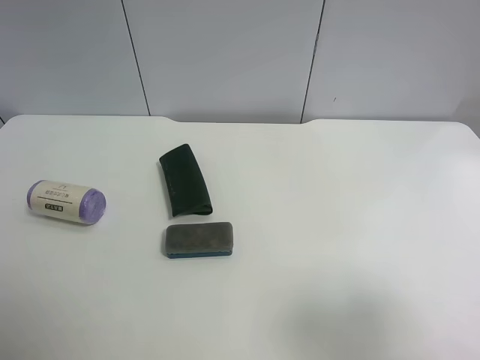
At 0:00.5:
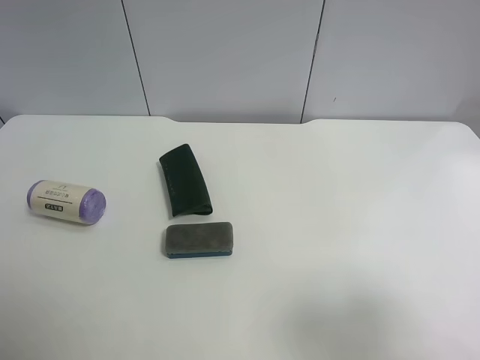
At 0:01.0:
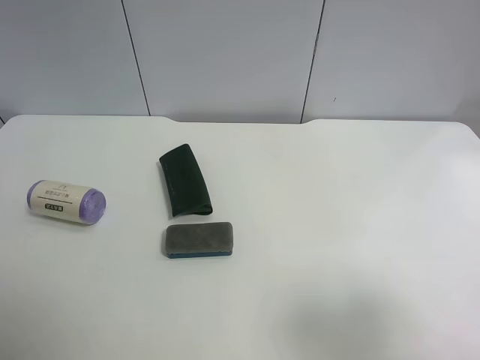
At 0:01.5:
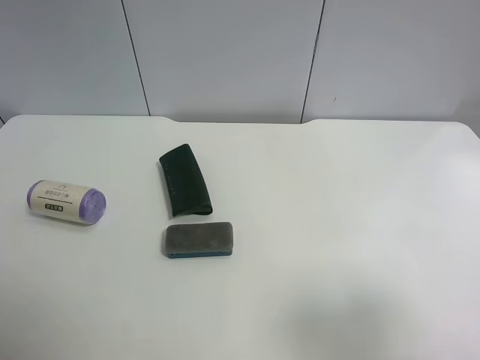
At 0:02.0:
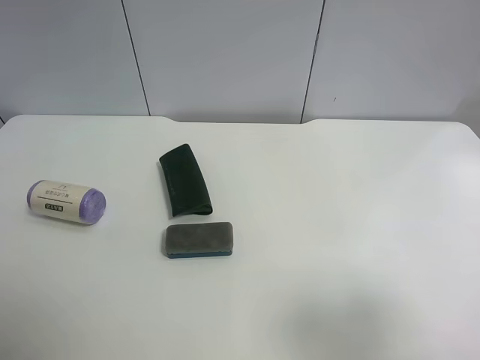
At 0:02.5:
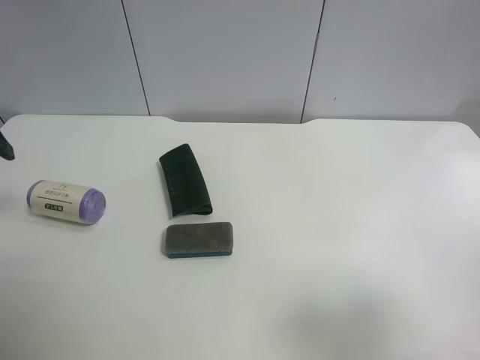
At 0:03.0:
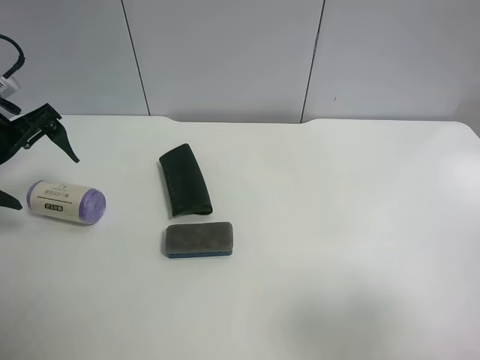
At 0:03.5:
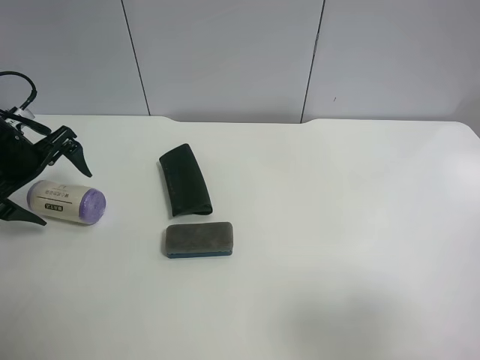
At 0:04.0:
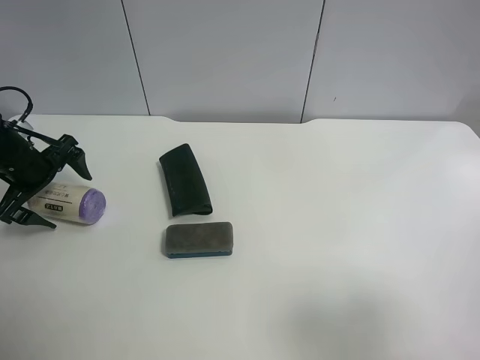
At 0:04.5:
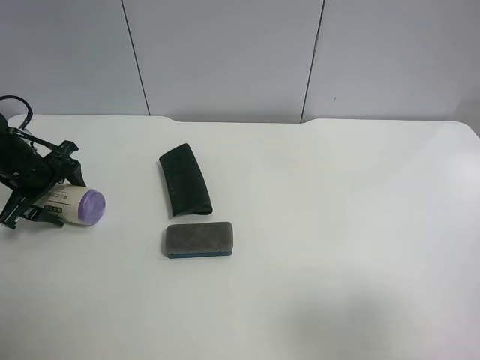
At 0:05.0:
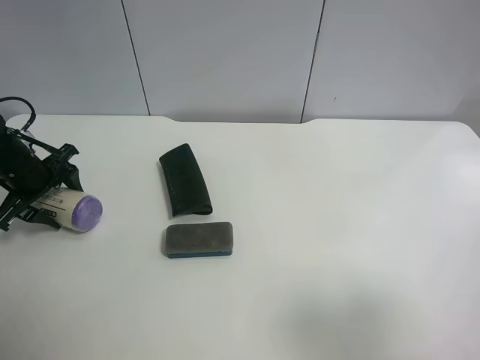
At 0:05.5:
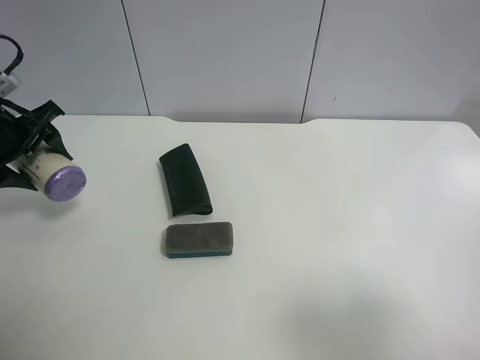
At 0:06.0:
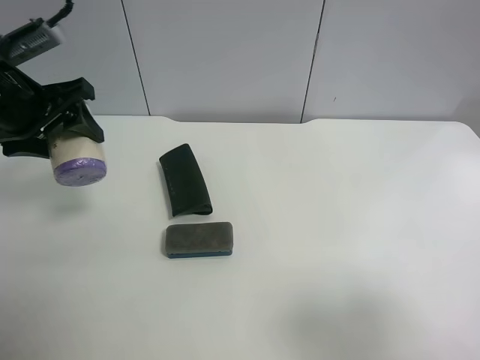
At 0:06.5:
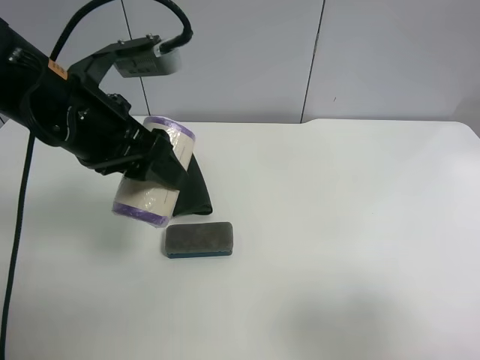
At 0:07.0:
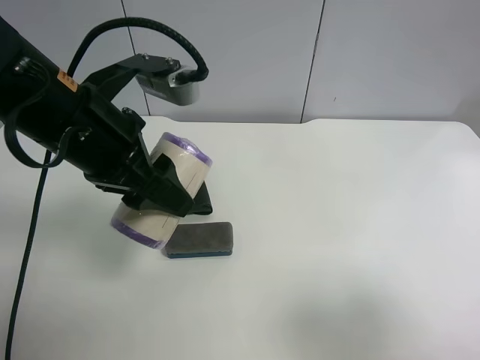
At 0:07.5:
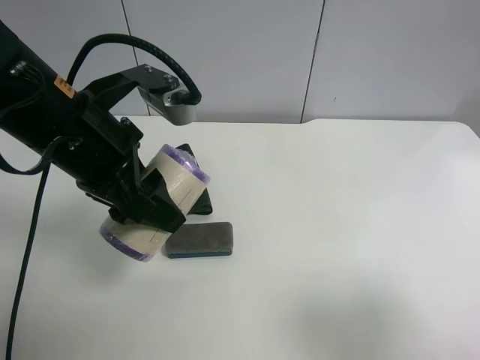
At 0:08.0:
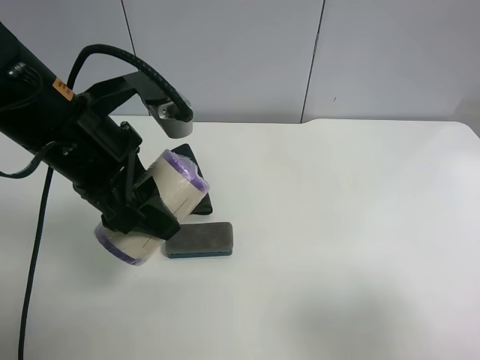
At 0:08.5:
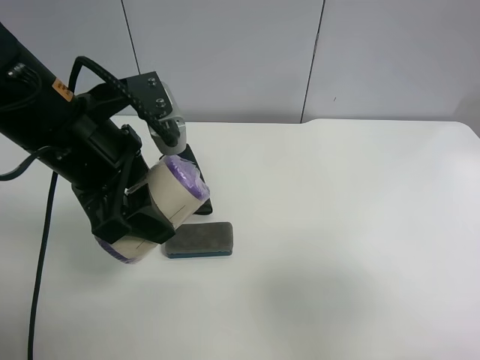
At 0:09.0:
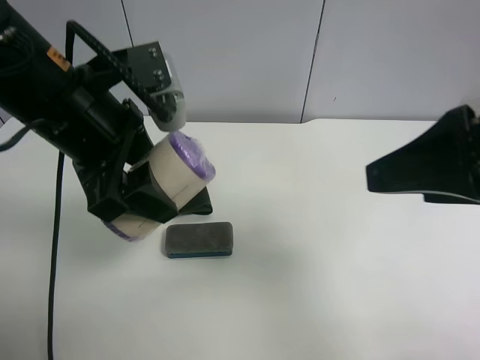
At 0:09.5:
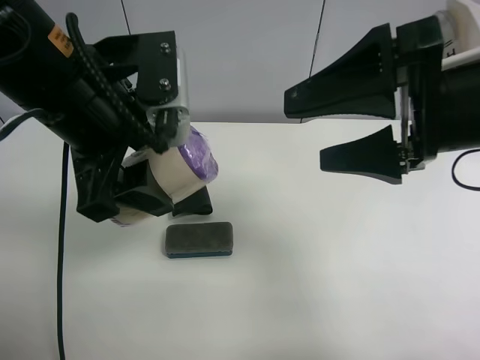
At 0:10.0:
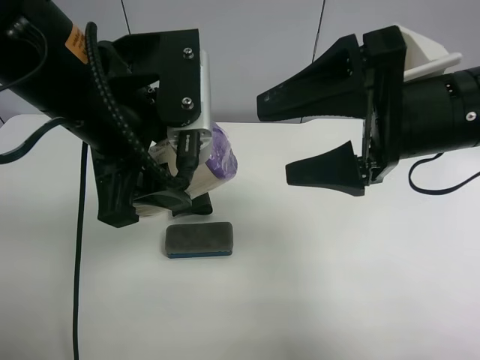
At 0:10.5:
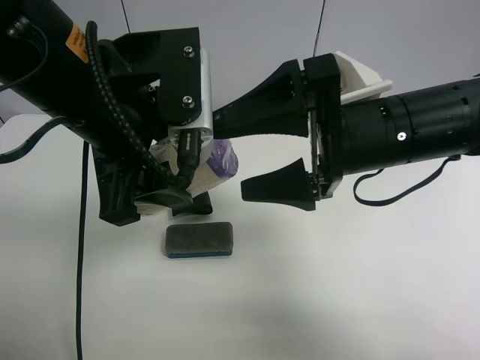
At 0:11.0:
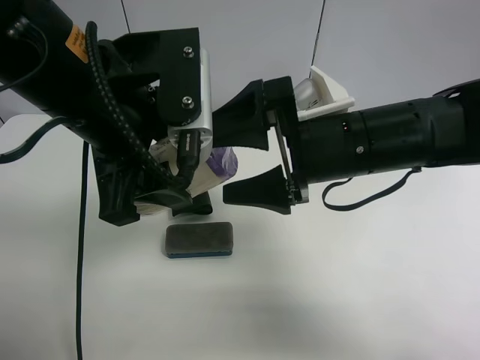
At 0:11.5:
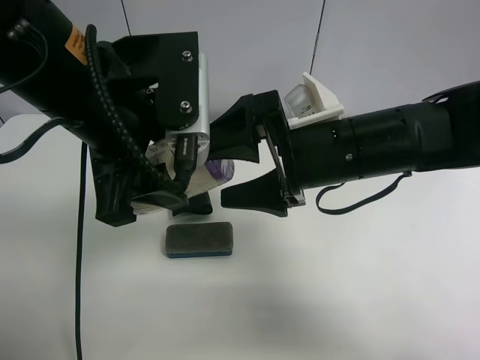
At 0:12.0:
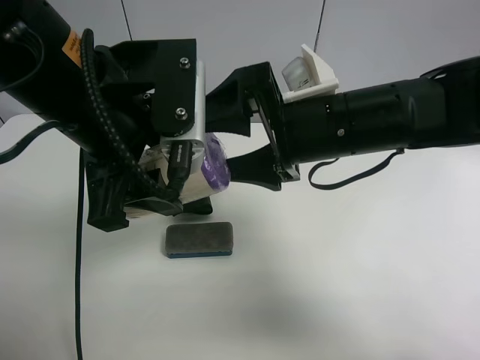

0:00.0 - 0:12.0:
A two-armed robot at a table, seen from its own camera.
Task of the whole recording: use the left gripper to pick up the item and transfer it from the left gripper to the right gripper.
0:02.0 - 0:04.0: The left gripper shifts some 35 cm forward and downward.
0:04.0 - 0:06.0: The left gripper is displaced upward, to the right and backward by roughly 15 cm, and closes up.
0:06.0 - 0:08.0: The left gripper shifts some 15 cm to the right and backward.
0:08.0 - 0:10.0: The left gripper shifts by approximately 5 cm. The right gripper shifts approximately 25 cm forward and to the left.
0:10.0 - 0:12.0: The right gripper heads to the left, covering some 5 cm.

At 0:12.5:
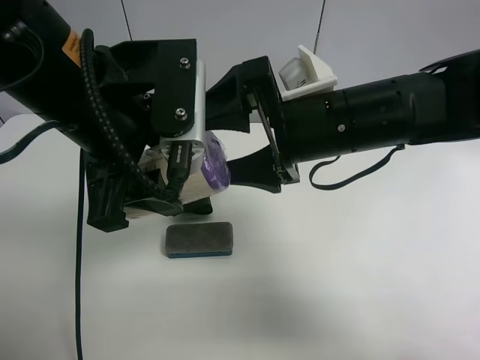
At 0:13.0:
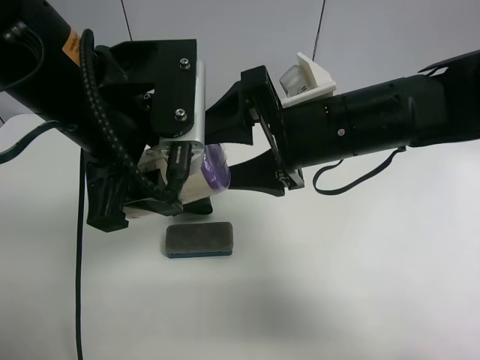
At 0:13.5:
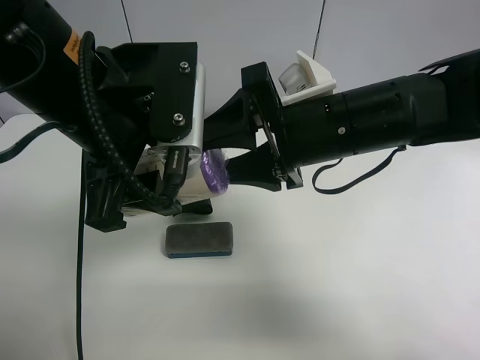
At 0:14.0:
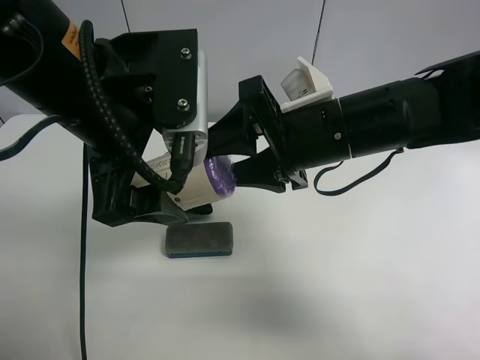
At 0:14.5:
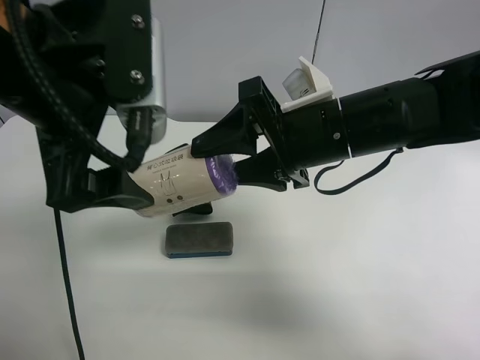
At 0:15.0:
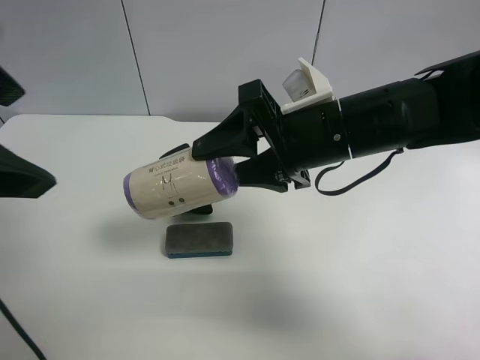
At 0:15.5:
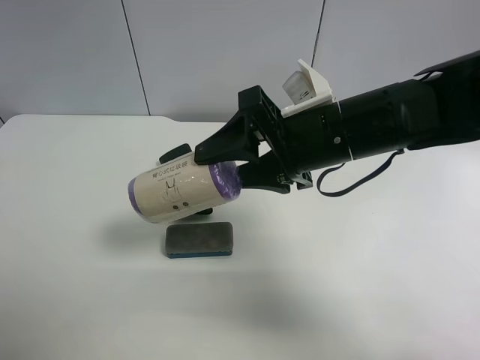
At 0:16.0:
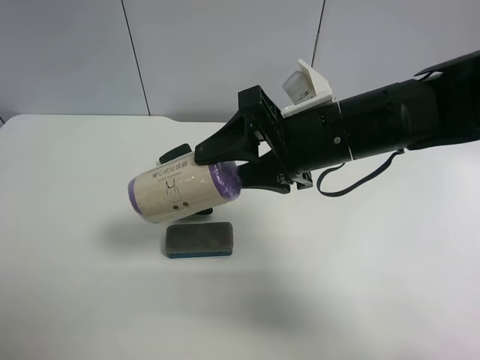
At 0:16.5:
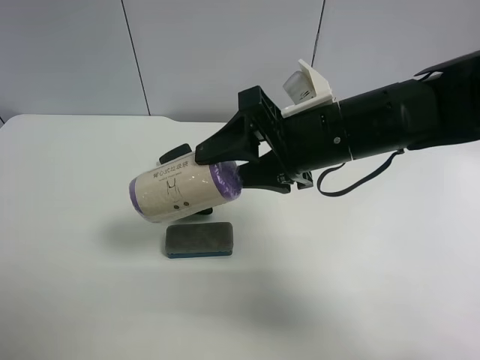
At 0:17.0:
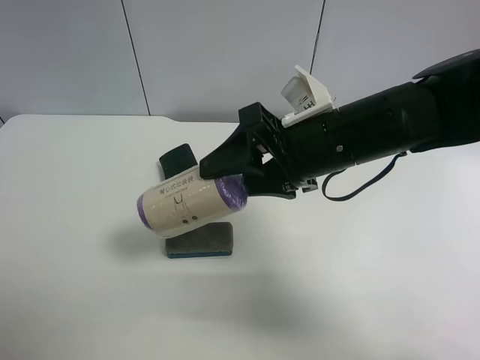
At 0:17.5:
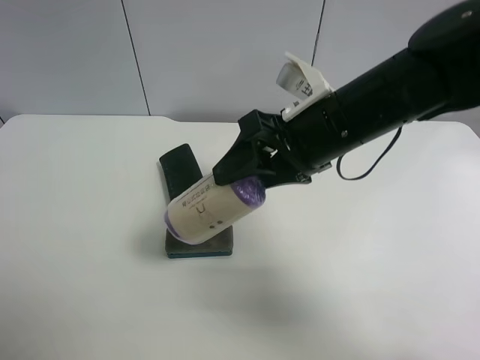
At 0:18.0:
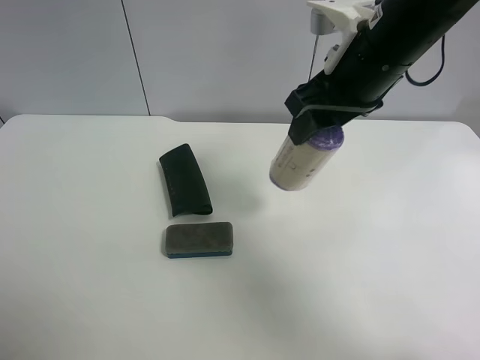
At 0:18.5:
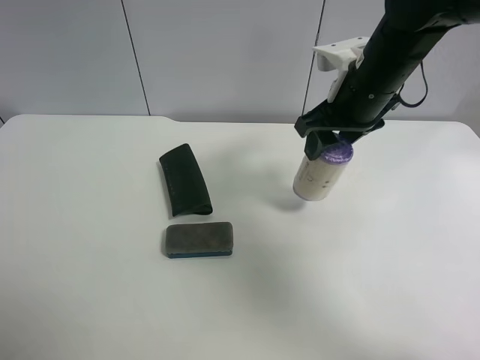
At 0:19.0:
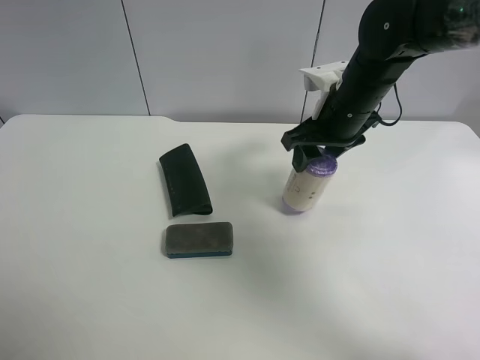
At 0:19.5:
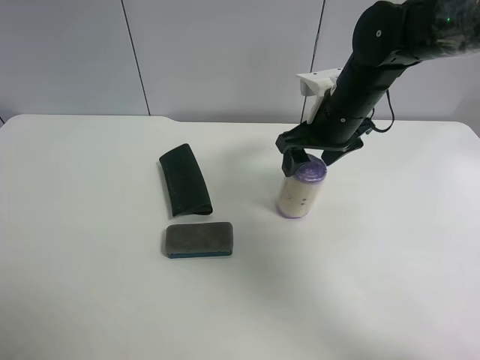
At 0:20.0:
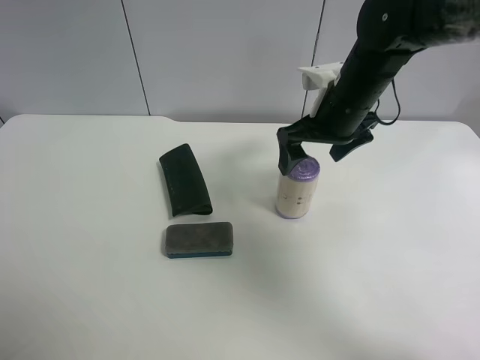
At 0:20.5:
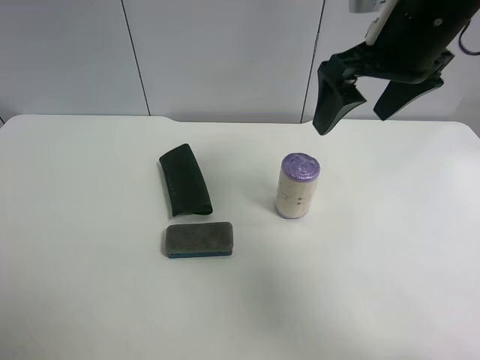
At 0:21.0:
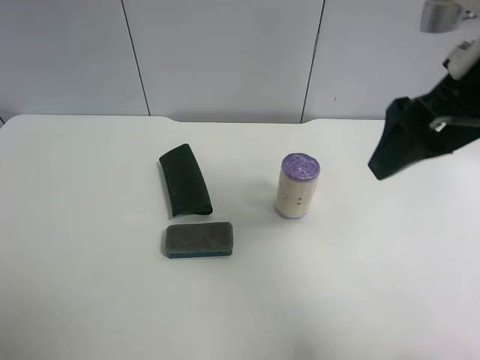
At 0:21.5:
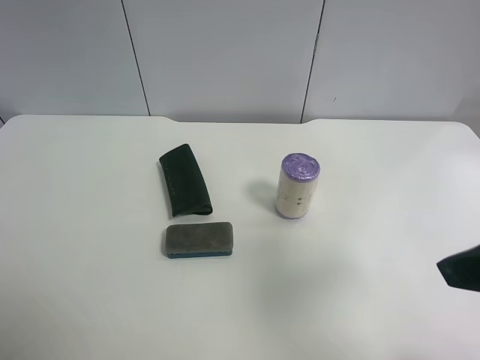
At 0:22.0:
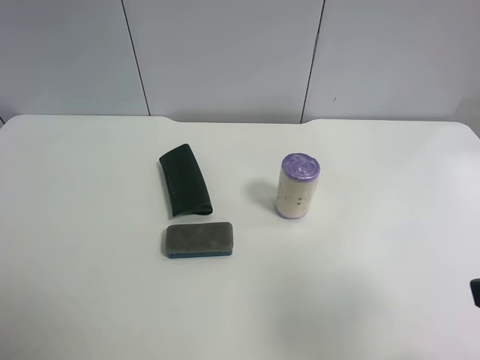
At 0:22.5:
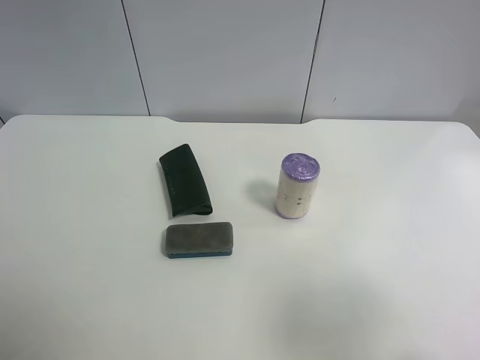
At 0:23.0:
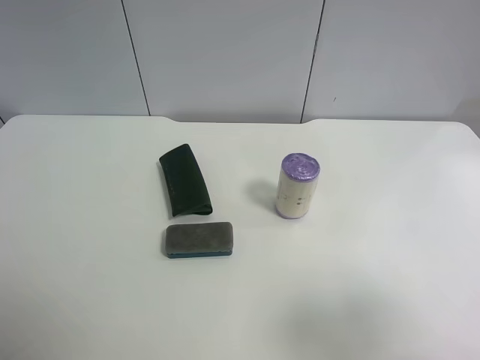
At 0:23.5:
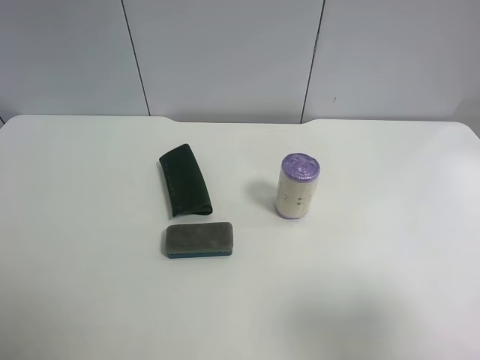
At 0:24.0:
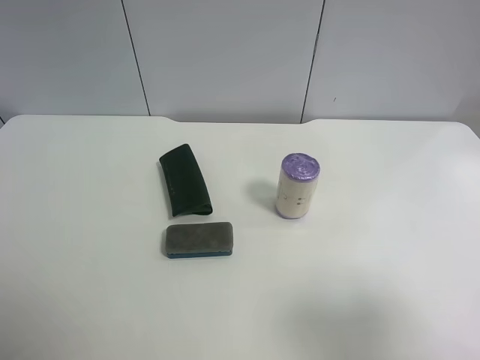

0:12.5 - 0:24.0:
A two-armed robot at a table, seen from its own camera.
Task of the whole recording: use the left gripper to pick up the item and transfer it from the left gripper to the right gripper.
0:12.5 - 0:14.5: The right gripper closes. The left gripper opens.
0:14.5 - 0:16.5: The left gripper is displaced to the left and backward by some 25 cm.
0:16.5 - 0:18.5: The right gripper travels forward and to the right by approximately 10 cm.
0:18.5 - 0:20.0: The right gripper opens.
0:20.0 - 0:22.0: The right gripper moves backward and to the right, about 35 cm.
